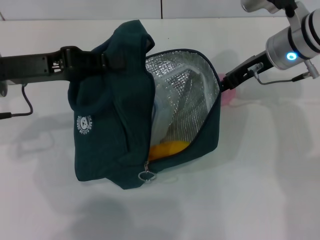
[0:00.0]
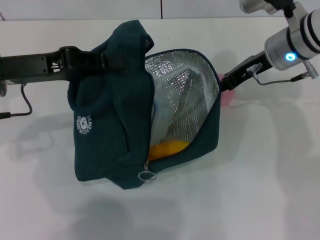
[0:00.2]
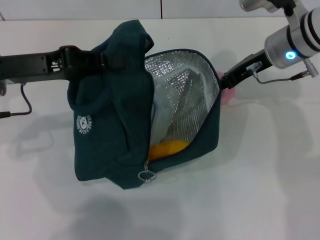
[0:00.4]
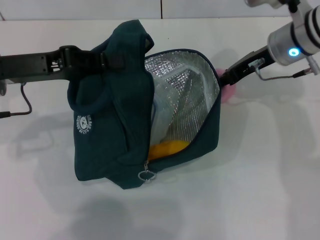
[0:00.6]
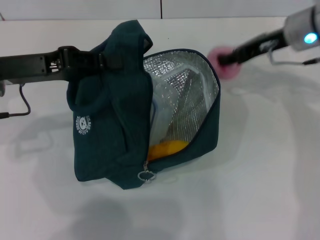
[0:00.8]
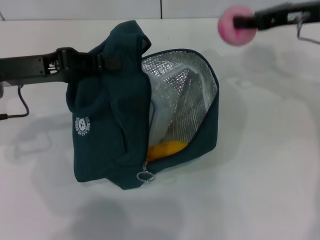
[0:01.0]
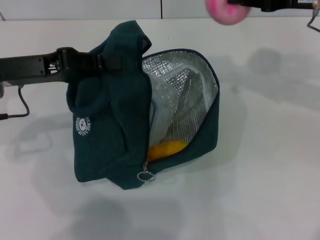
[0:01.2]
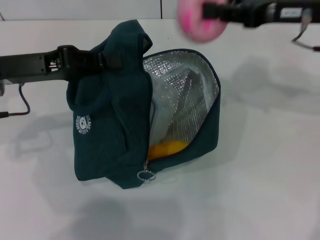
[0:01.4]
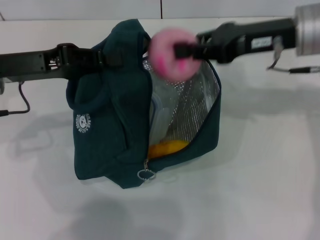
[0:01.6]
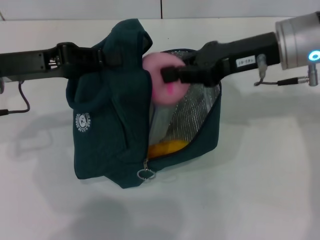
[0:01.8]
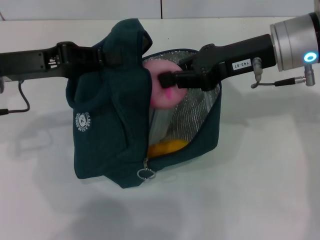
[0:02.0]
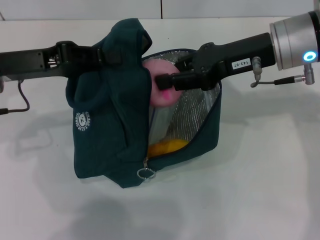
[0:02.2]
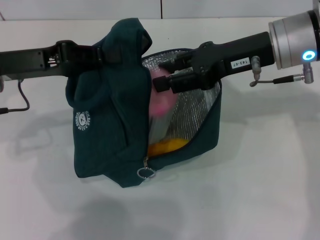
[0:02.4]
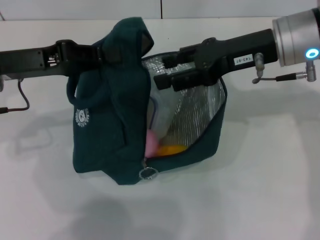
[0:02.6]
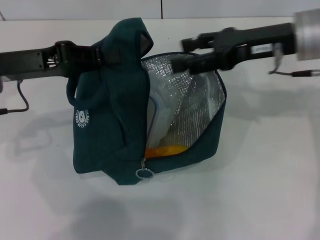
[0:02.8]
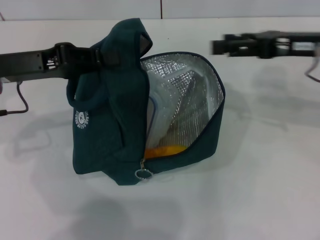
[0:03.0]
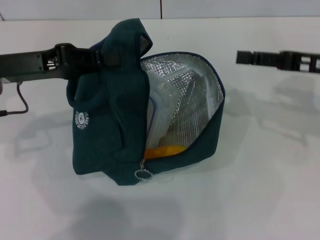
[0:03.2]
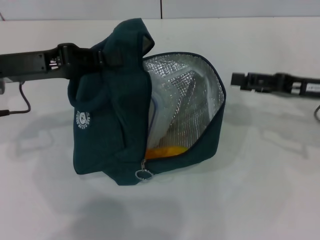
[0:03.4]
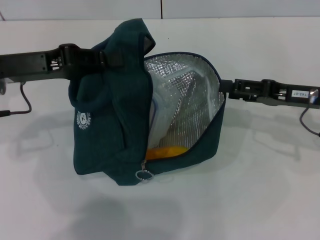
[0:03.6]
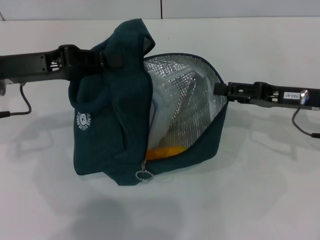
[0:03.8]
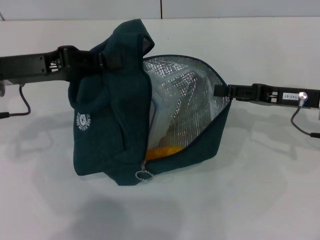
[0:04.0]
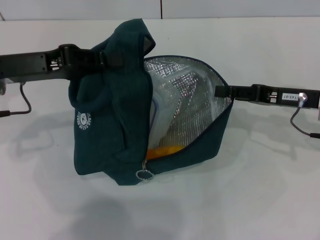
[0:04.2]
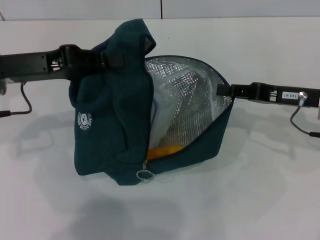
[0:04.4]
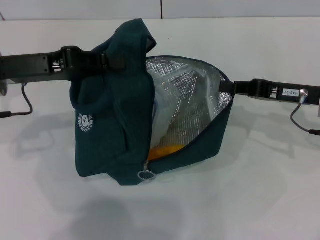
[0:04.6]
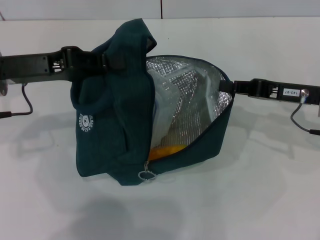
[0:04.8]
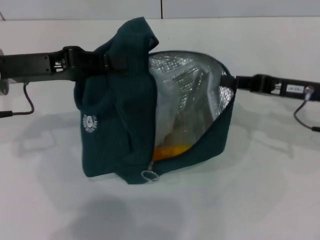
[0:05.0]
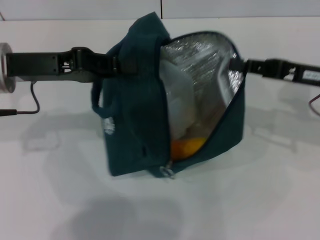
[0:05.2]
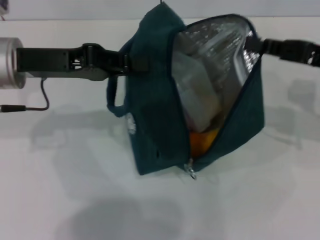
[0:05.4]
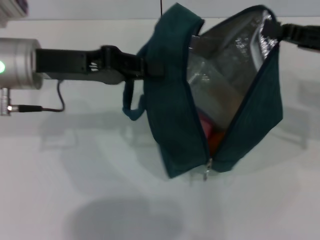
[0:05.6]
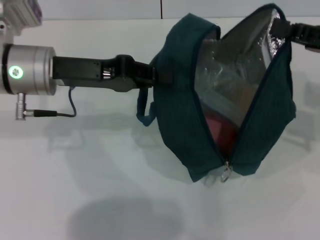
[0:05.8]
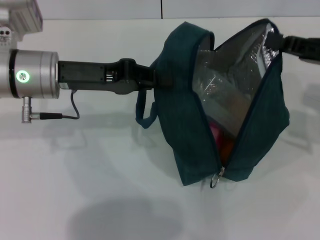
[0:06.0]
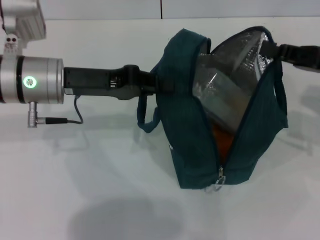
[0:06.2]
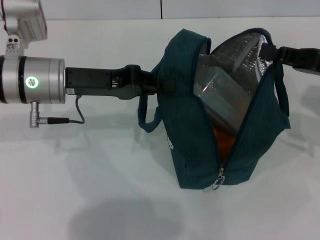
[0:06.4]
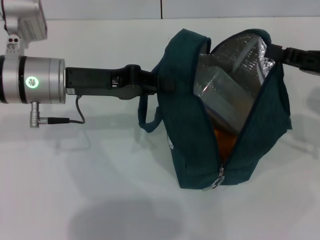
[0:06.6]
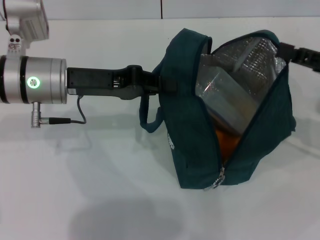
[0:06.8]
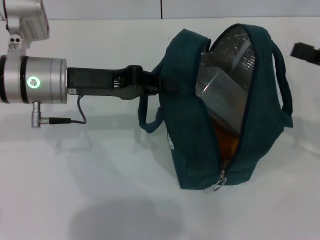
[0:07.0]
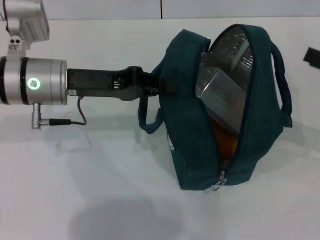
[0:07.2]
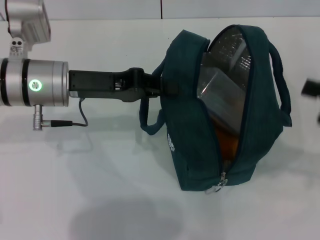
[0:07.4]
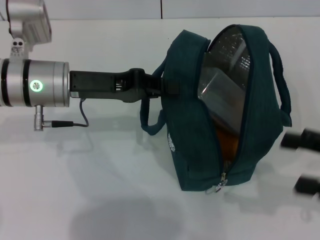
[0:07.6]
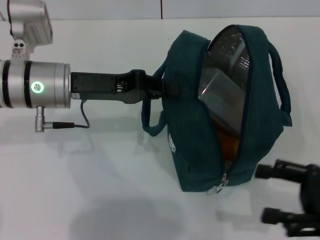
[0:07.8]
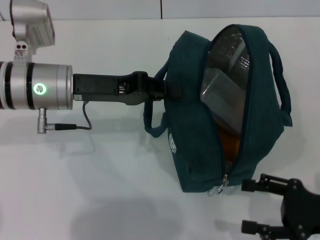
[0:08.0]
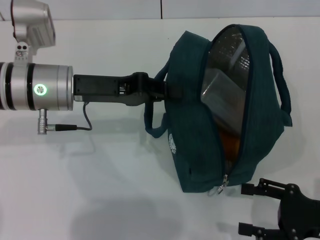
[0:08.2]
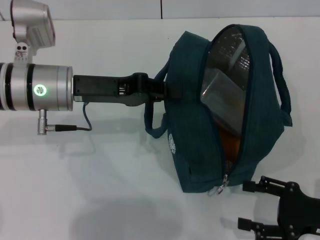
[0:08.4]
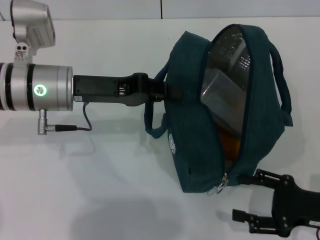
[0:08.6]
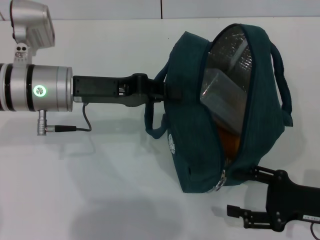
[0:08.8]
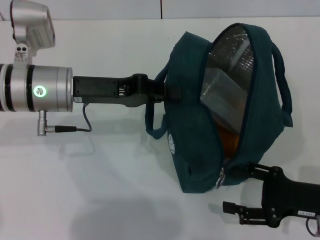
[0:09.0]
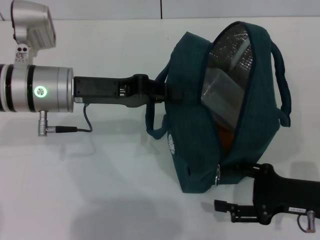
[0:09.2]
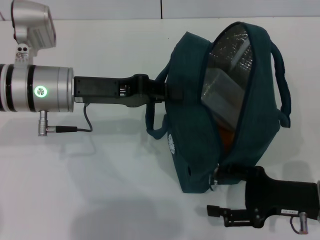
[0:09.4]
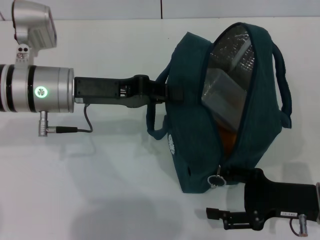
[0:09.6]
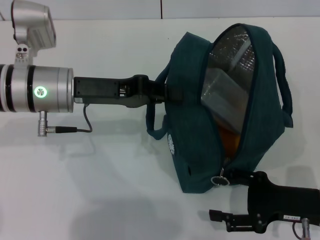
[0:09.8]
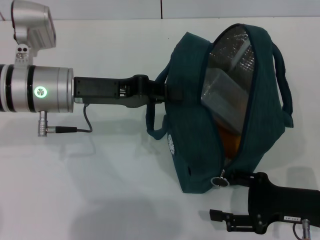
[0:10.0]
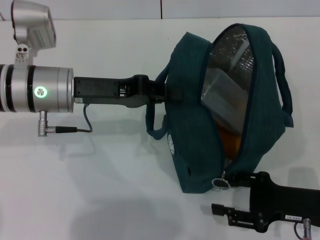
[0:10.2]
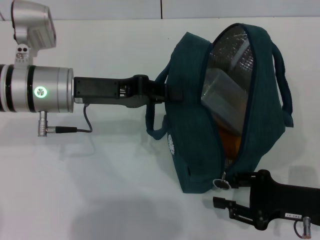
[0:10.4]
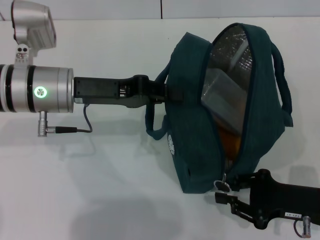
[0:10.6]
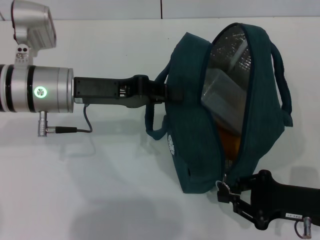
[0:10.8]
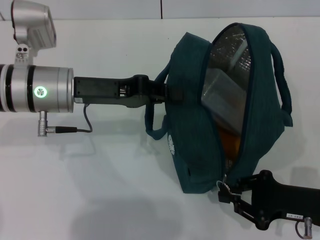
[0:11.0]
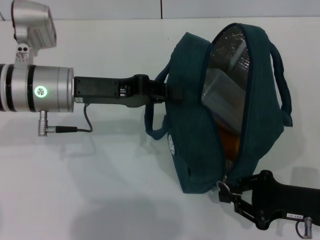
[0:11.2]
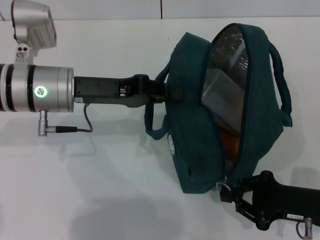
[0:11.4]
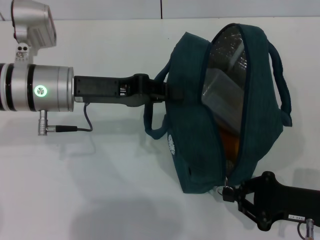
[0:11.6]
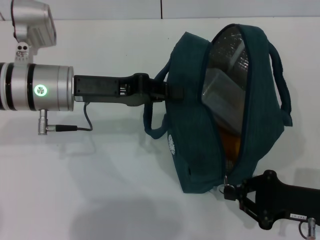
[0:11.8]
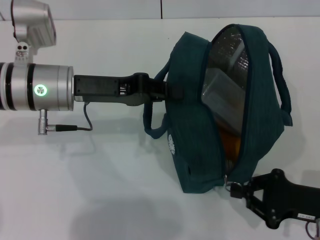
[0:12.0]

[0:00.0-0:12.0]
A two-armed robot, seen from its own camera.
Step, 0:02.8 to 0:07.0: Hold the lunch bag with your right hand.
0:00.0 to 0:01.6: The right gripper travels upward and backward by roughly 10 cm, and closes its fingers.
0:01.6 to 0:03.0: The right gripper is displaced to the right by about 5 cm, and opens.
0:03.0 to 0:04.4: The right gripper goes roughly 10 cm downward, and closes up.
0:04.4 to 0:06.0: The left gripper shifts roughly 5 cm to the right. Meanwhile the right gripper moves upward, some 5 cm, and closes its fingers.
0:06.0 to 0:07.6: The right gripper moves backward, some 10 cm, and opens up.
0:07.6 to 0:09.0: The right gripper moves downward, roughly 10 cm.
0:09.0 to 0:10.4: The grippers make only small movements.
0:10.4 to 0:12.0: The right gripper closes.

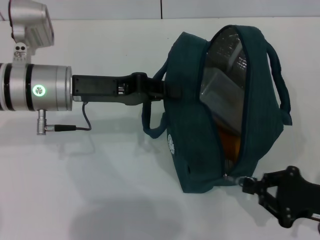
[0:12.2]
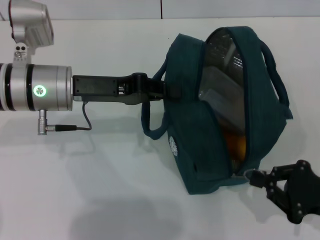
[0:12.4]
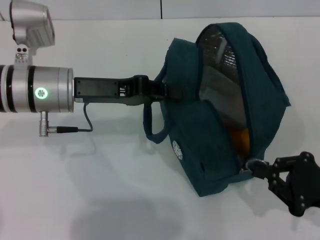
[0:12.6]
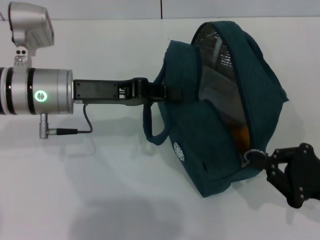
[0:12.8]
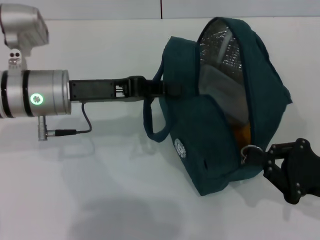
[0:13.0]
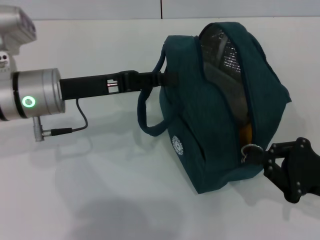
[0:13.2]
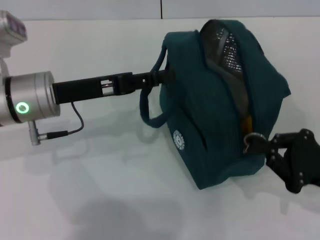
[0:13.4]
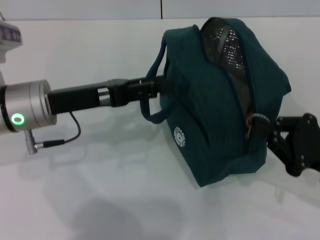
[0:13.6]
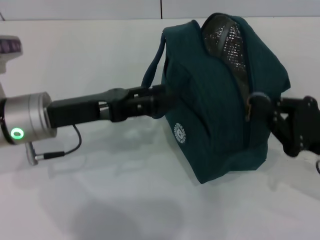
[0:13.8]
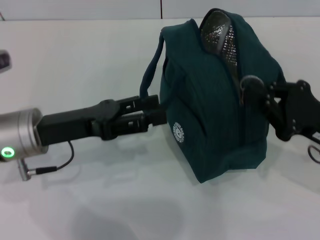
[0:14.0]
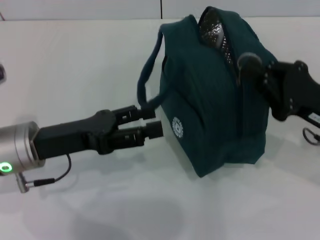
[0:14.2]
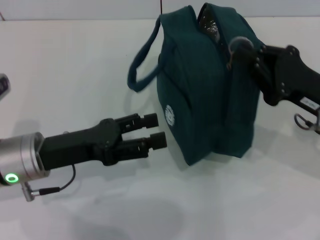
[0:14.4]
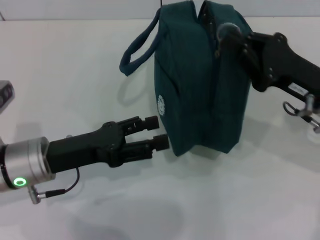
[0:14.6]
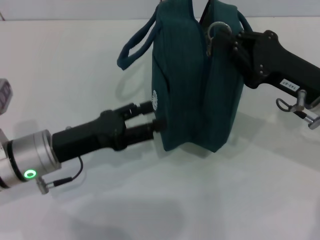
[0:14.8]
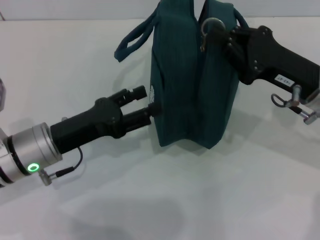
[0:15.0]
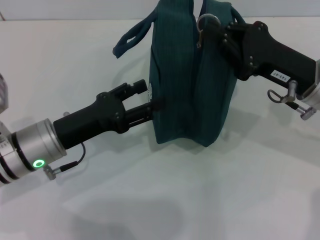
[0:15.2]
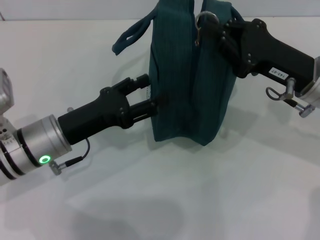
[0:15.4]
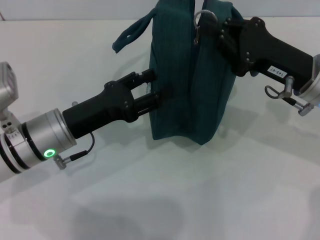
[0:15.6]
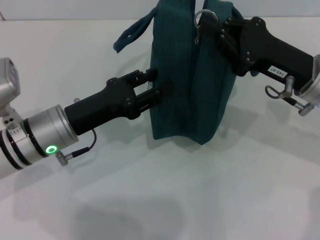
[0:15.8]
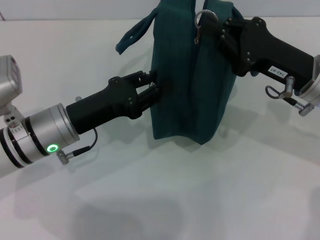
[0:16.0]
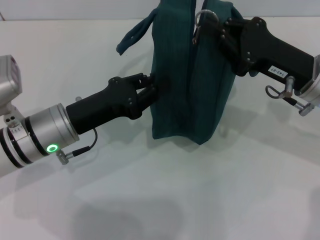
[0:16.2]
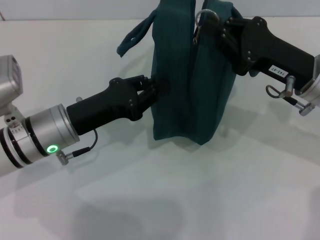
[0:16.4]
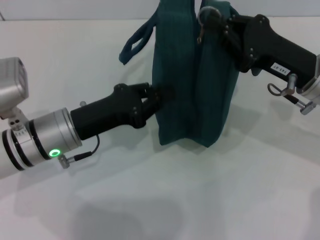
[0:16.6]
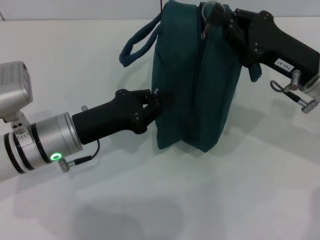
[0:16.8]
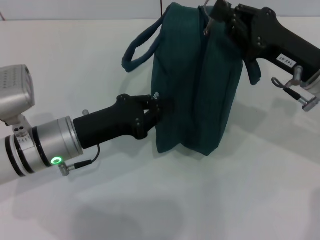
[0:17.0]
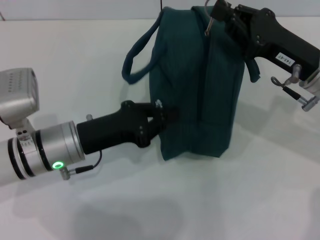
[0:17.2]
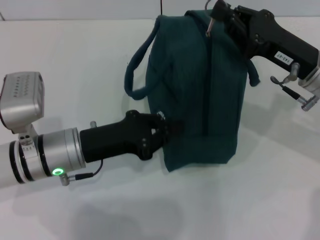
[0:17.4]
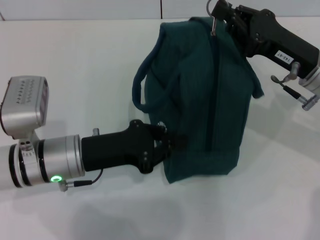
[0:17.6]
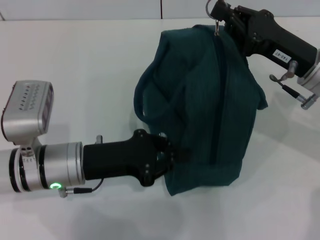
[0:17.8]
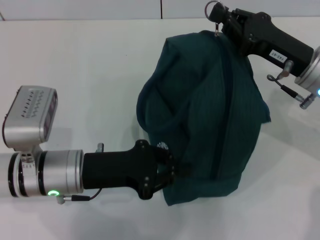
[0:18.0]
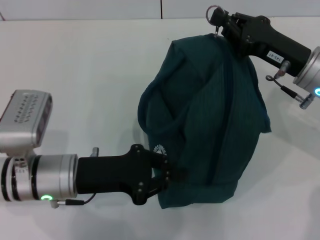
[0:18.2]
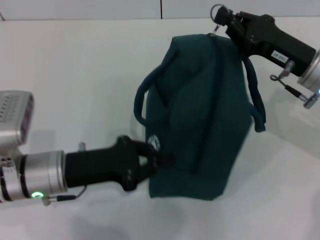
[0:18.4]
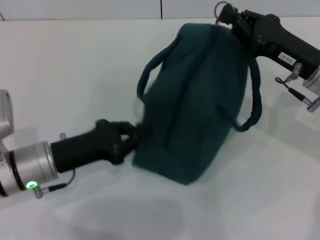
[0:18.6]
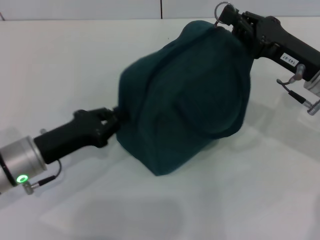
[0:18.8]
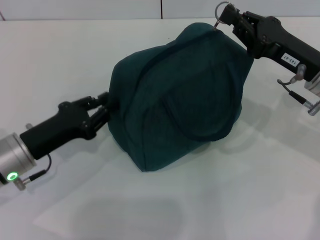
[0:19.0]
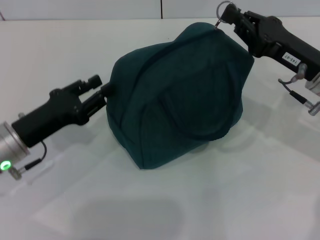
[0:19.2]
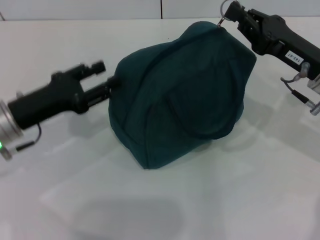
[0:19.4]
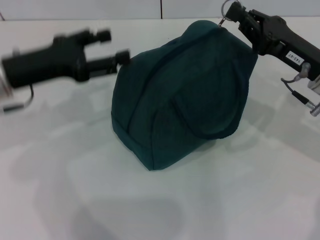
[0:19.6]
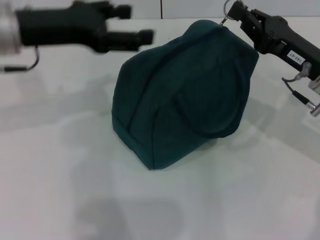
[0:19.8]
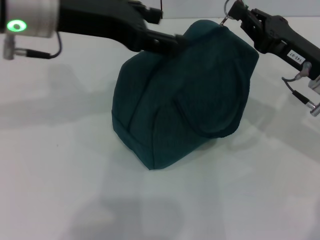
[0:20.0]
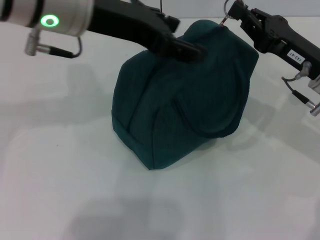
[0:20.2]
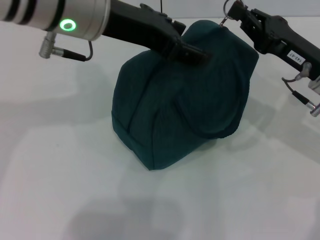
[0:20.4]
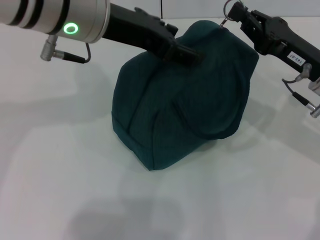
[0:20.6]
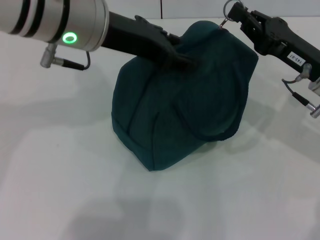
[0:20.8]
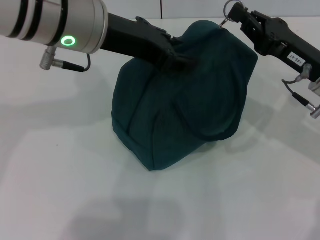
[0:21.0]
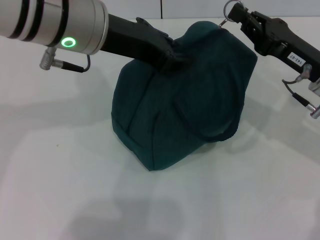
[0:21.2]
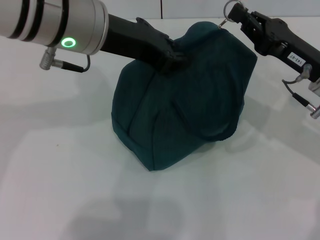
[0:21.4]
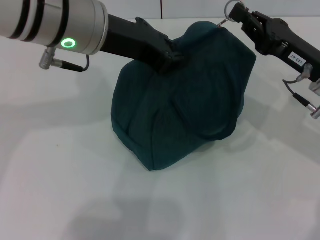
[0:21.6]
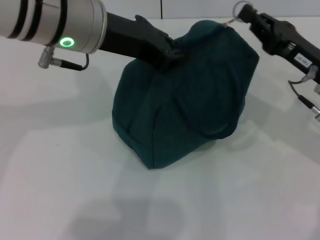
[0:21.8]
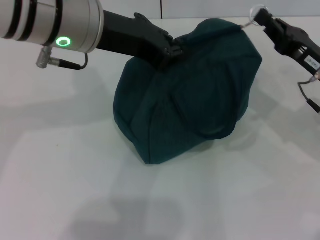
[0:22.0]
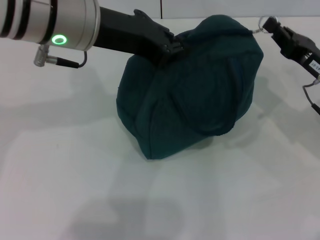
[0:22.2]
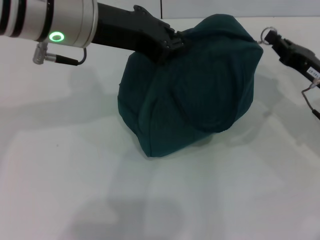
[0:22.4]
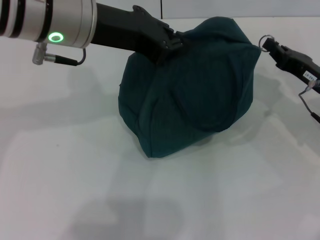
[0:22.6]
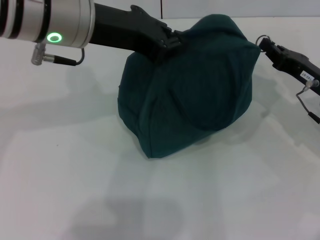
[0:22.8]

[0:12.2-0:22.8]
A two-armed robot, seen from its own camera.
0:12.2 to 0:13.8: The left gripper opens, while the right gripper changes place by approximately 5 cm.
0:13.8 to 0:15.2: The left gripper travels downward by approximately 5 cm. The right gripper travels forward, to the left and upward by some 10 cm.
0:15.2 to 0:16.8: The left gripper closes.
0:18.2 to 0:19.8: The left gripper travels upward and forward by about 20 cm, and opens.
0:19.8 to 0:21.2: The left gripper travels to the right by about 10 cm, and closes its fingers.
0:21.2 to 0:22.8: The right gripper moves approximately 5 cm, while the left gripper closes its fingers.
